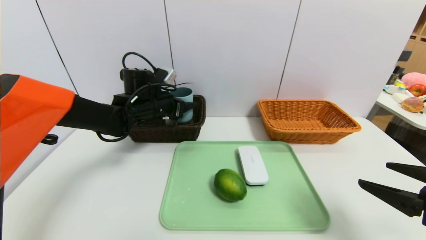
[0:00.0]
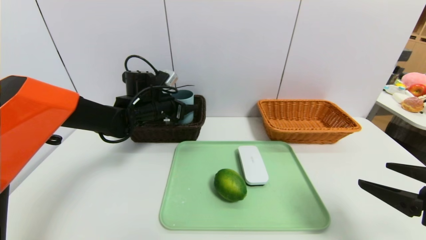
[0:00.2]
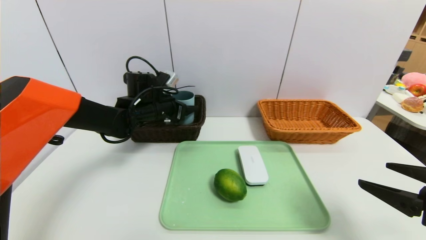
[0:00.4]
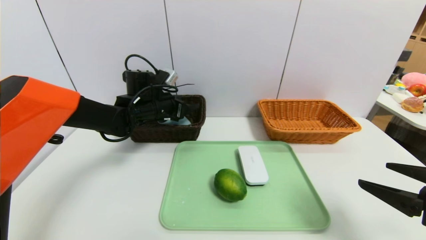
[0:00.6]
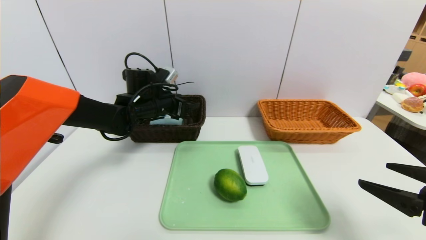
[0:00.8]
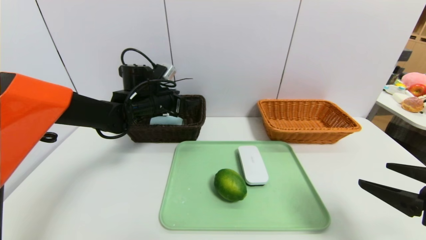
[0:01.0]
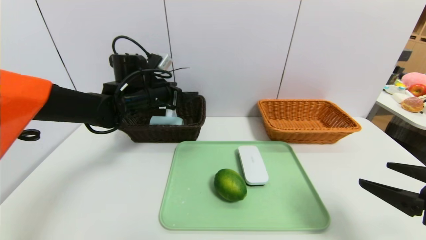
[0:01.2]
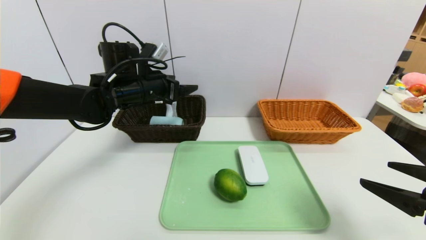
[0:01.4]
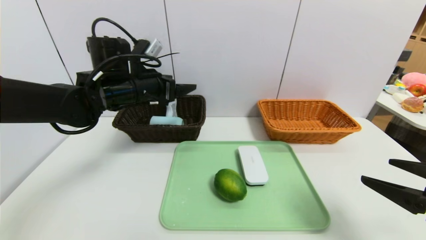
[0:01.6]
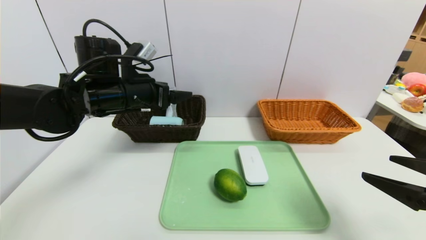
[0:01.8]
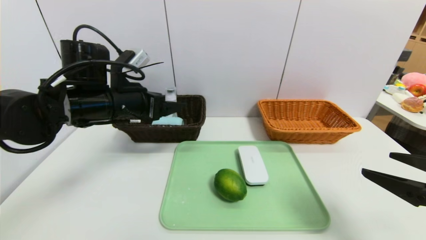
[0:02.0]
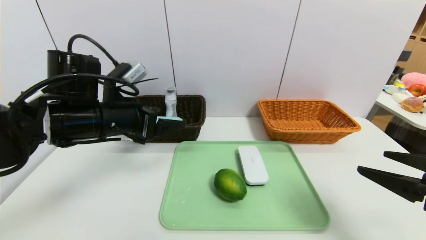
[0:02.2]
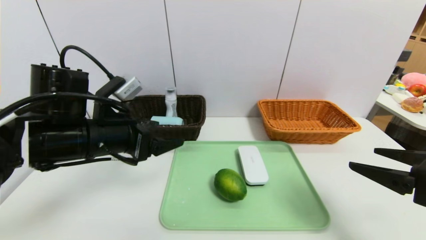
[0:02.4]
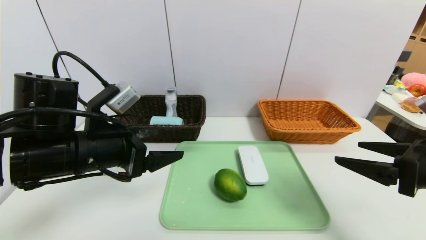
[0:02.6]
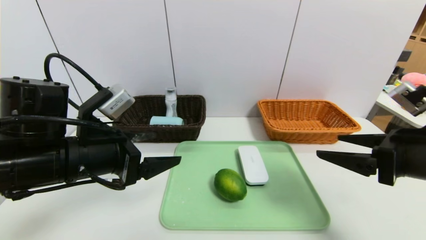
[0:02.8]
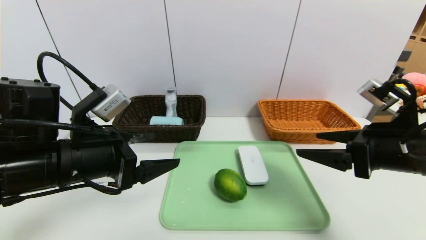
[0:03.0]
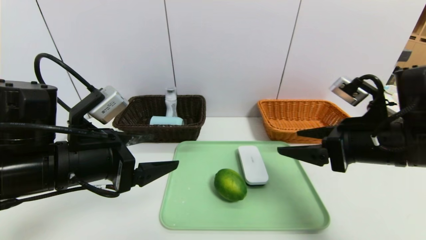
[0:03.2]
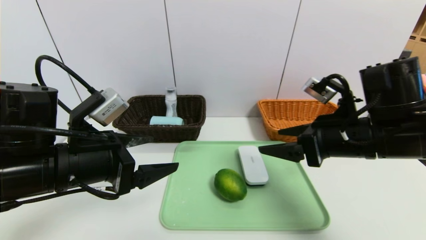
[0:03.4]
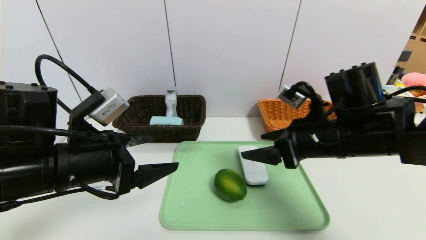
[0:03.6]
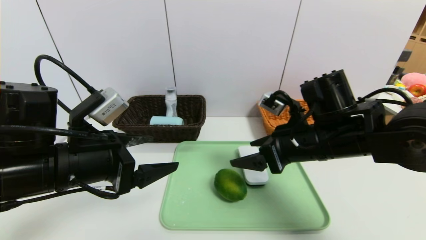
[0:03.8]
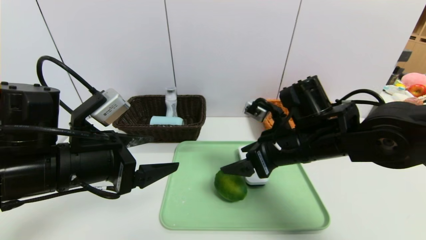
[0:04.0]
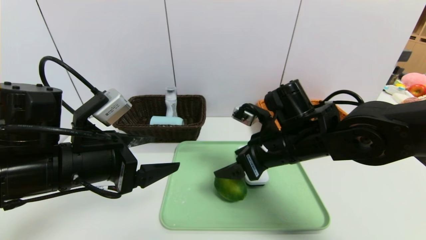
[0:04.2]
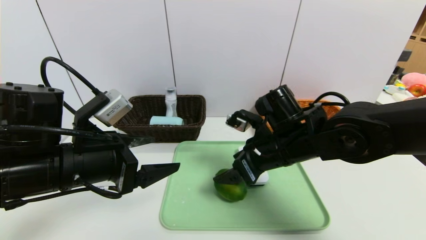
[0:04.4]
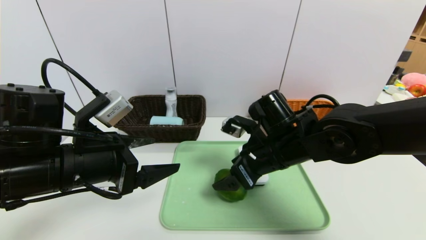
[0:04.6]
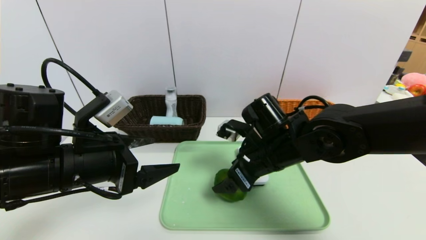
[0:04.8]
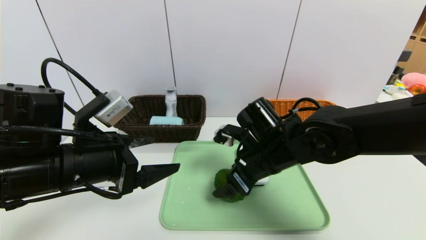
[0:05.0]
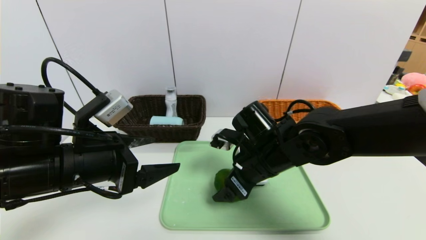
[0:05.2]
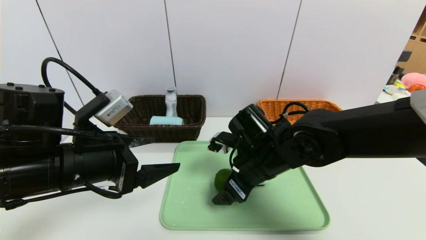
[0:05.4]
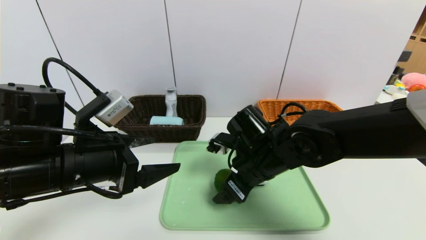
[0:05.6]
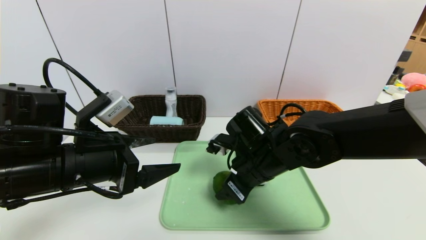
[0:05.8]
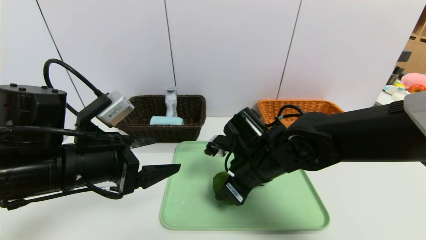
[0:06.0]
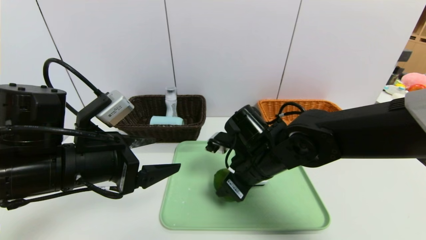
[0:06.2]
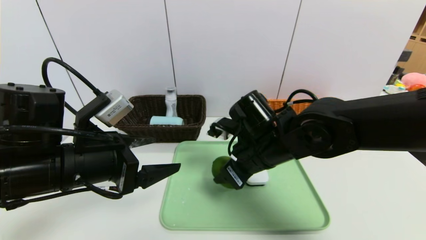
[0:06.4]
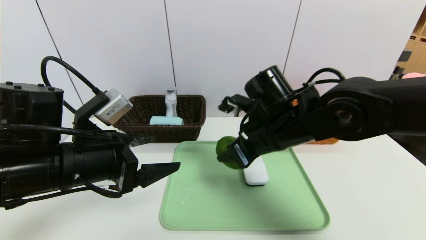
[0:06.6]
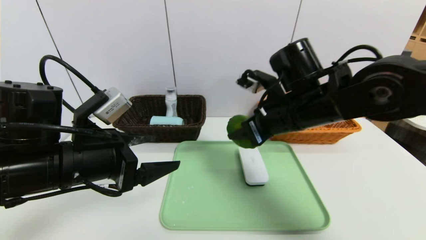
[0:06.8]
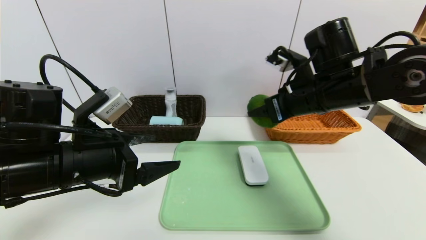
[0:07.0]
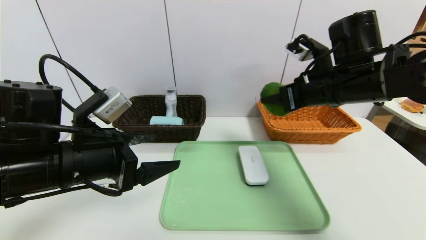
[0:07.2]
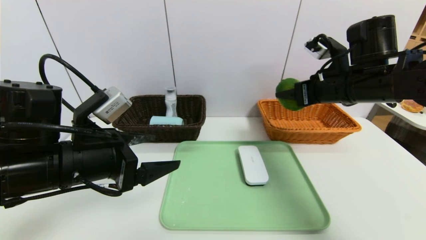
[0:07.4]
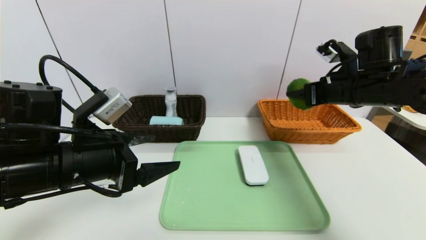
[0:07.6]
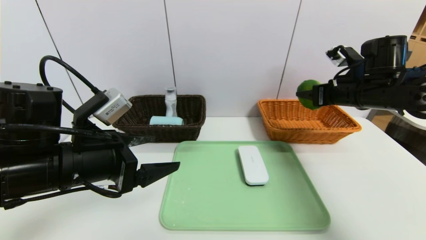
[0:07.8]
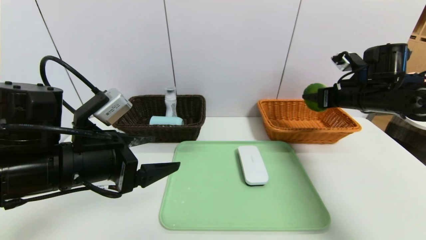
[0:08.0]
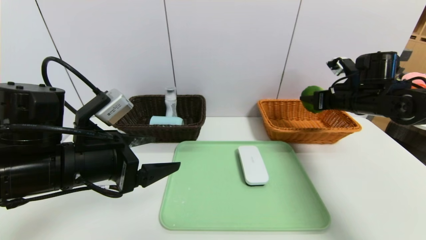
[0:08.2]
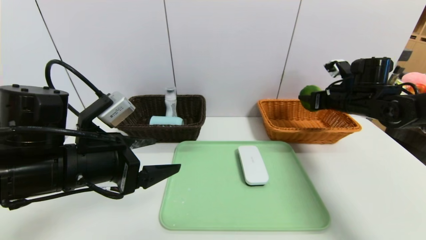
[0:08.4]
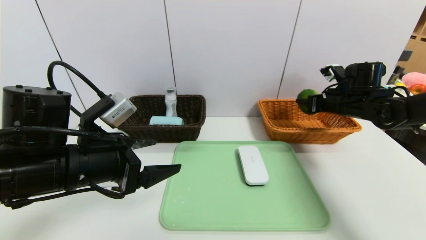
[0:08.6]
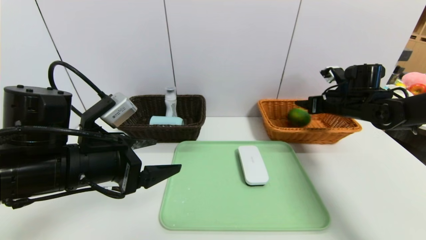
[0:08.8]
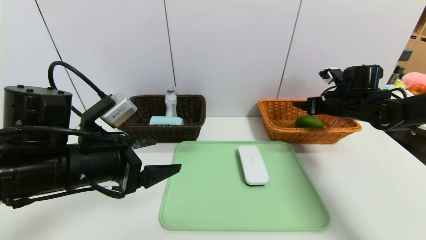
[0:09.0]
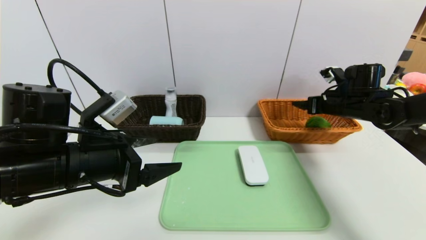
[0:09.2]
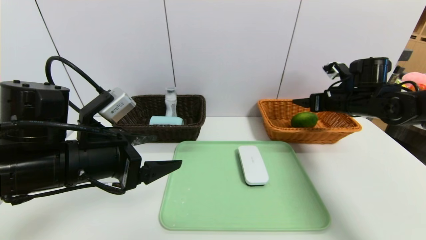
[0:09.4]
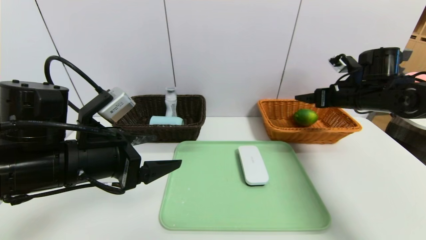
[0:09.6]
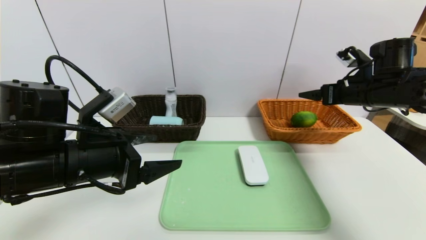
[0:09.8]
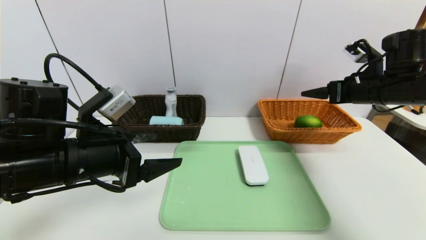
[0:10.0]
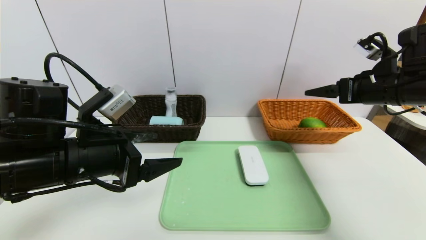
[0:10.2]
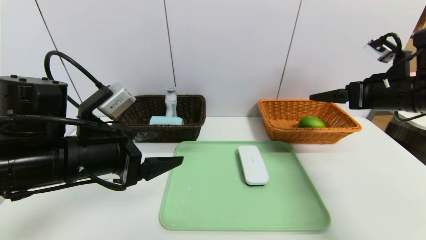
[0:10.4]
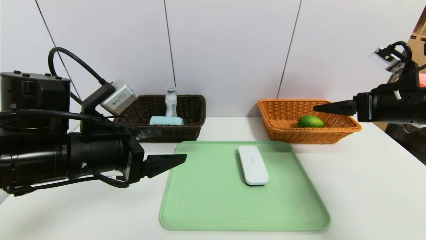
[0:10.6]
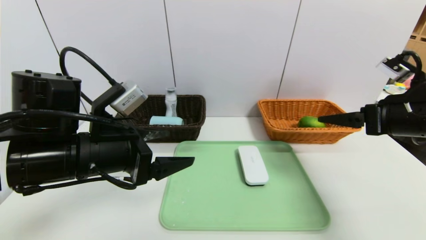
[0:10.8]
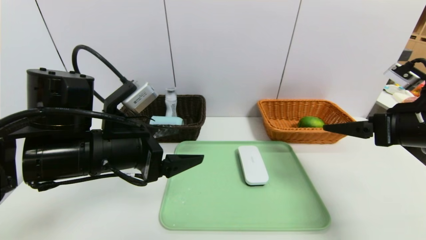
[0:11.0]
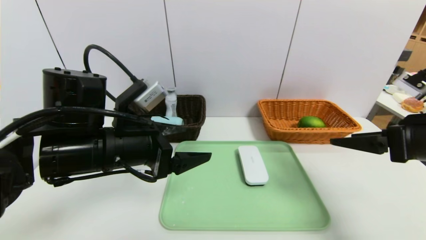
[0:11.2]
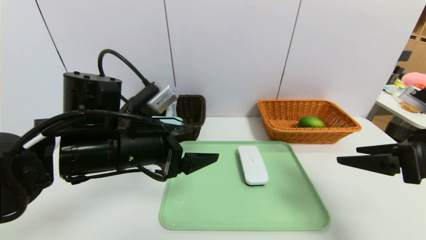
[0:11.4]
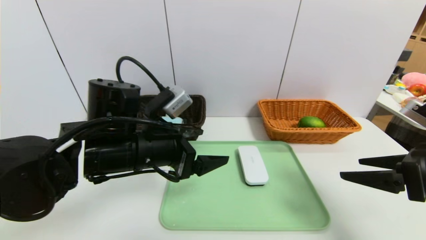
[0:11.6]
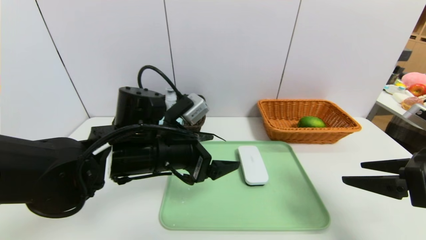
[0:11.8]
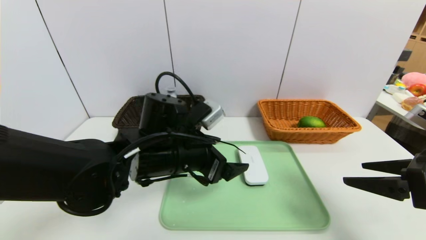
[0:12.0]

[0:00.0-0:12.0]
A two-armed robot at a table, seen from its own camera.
Task of the whole recording: place the food in the right basket with the right gripper, and place the non food items in the left basket with the left gripper.
Step, 0:01.4 to 0:09.8: Grasp the green lemon and put it in the right basket.
0:00.0 to 0:01.6: The left gripper travels upward and backward by approximately 10 cm, and opens up.
0:01.6 to 0:03.0: The left gripper goes about 15 cm backward. Meanwhile the right gripper is displaced forward and to the left by roughly 10 cm.
0:03.0 to 0:04.4: The right gripper moves to the left and forward, about 15 cm.
0:04.4 to 0:06.0: The right gripper closes its fingers.
0:06.0 to 0:07.6: The right gripper travels to the right and upward by roughly 20 cm.
0:07.6 to 0:09.0: The right gripper heads forward, downward and to the right, covering approximately 10 cm, and opens its fingers.
0:09.0 to 0:10.4: The right gripper shifts approximately 15 cm backward and upward, and opens its fingers.
0:10.4 to 0:12.0: The left gripper goes approximately 10 cm to the right. Meanwhile the right gripper heads backward, covering approximately 15 cm.

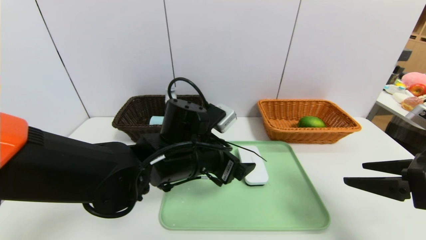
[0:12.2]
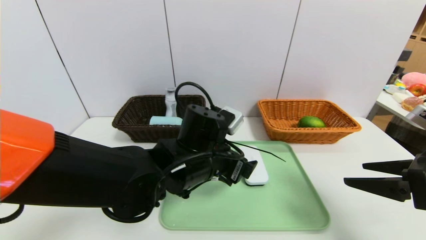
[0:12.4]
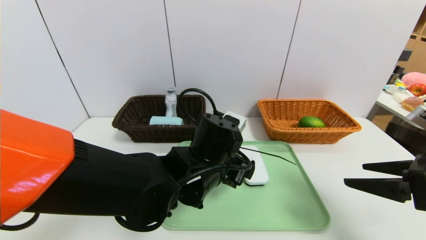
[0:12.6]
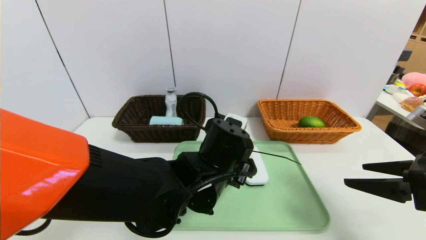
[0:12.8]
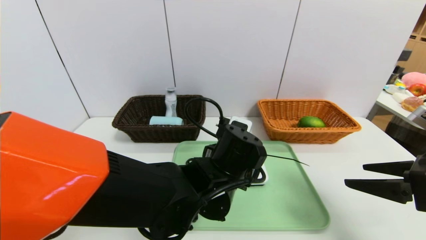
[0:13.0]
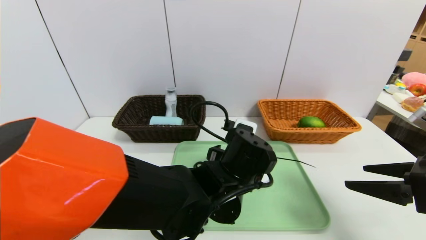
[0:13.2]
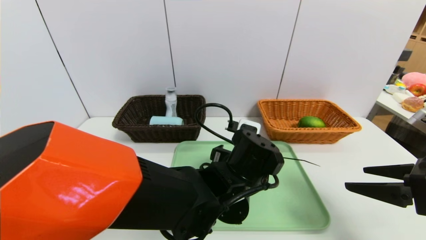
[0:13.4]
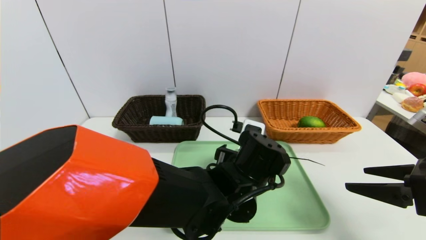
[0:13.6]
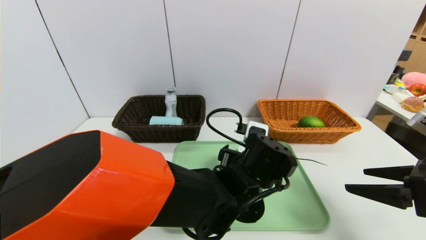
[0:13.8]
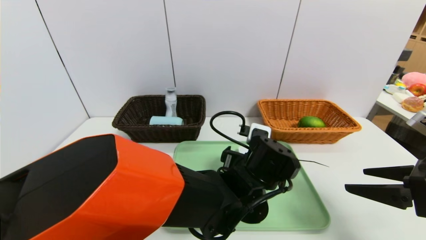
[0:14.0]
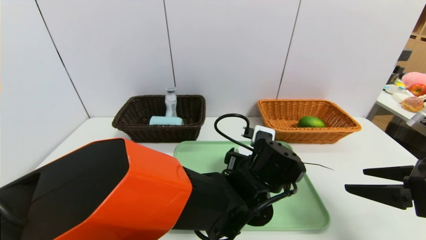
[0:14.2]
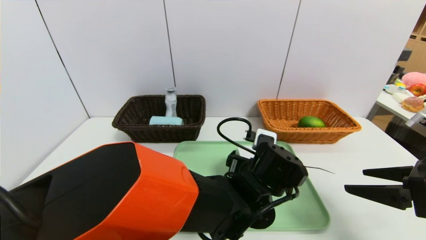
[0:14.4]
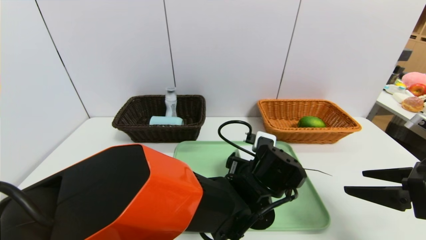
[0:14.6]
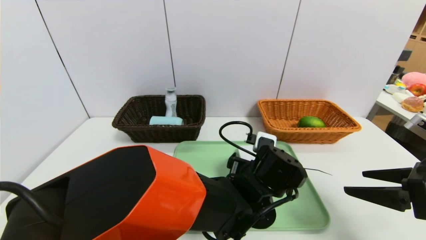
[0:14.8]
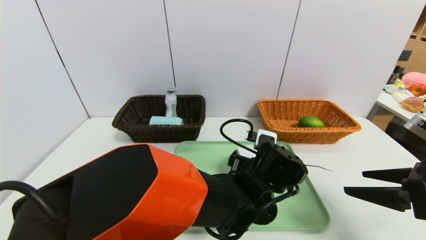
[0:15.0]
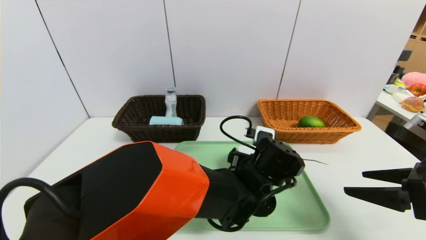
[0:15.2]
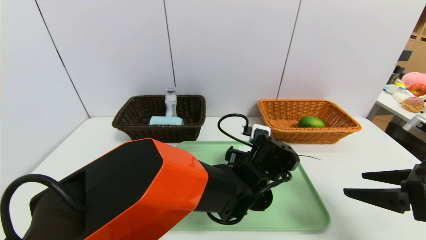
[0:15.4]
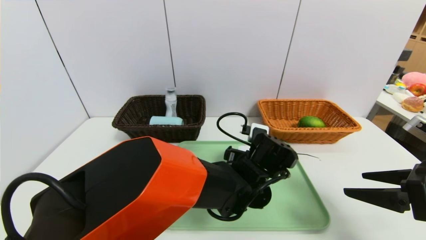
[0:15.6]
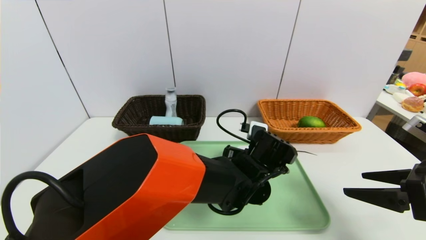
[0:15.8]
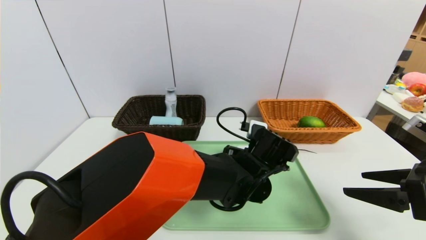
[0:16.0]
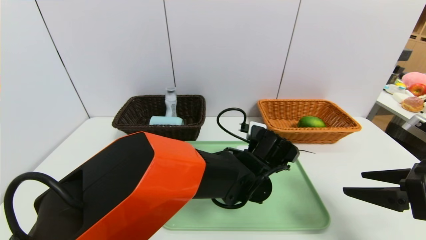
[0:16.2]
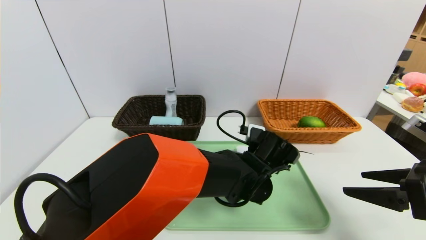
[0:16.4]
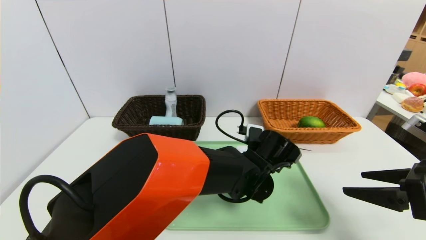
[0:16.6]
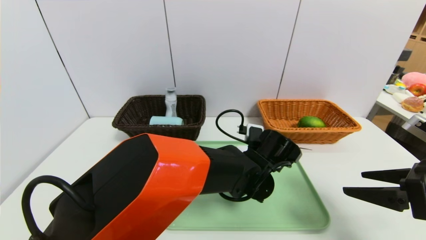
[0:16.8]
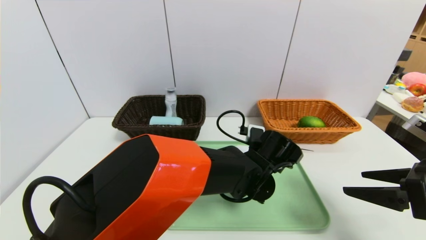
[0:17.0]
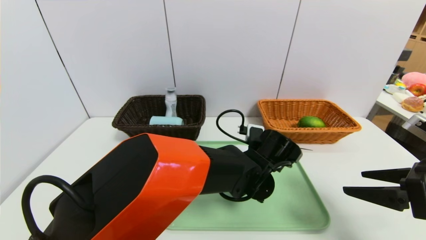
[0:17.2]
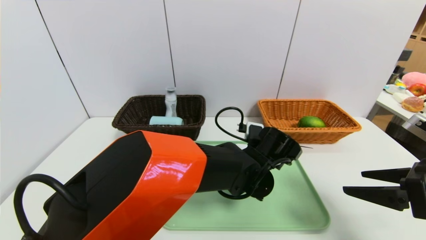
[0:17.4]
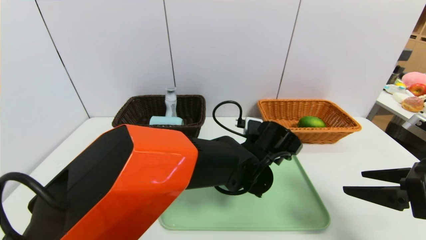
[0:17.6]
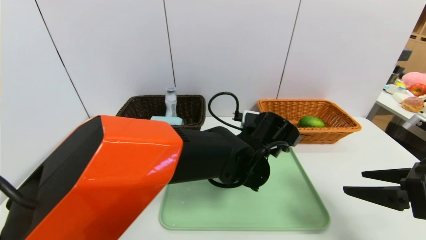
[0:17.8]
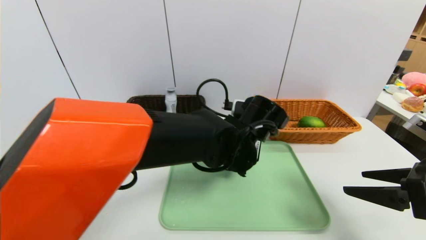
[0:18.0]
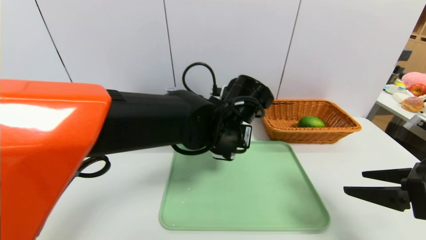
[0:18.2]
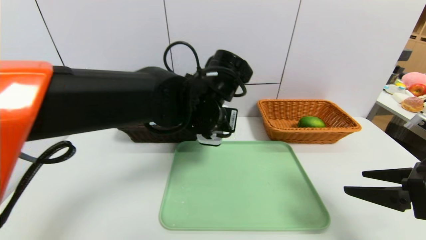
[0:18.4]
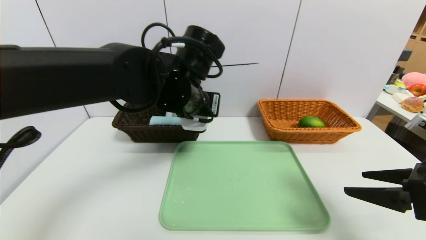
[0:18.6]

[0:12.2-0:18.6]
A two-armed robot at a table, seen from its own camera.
Task of the whole recording: place the food in the right basket with the right gripper, and place the non food items in the left basket with the left gripper.
0:12.2 to 0:13.8: The left gripper moves to the right, approximately 10 cm.
0:15.4 to 0:17.0: The left gripper closes its fingers.
0:17.0 to 0:18.6: The left gripper heads upward and to the left, covering roughly 20 cm.
